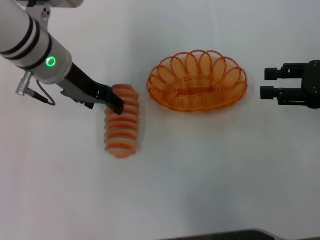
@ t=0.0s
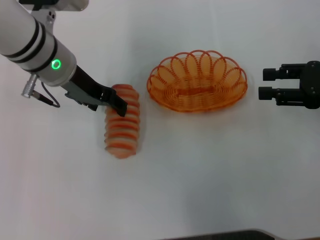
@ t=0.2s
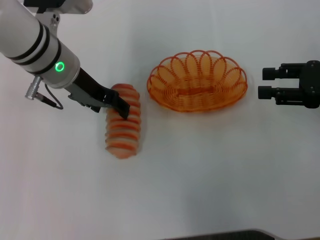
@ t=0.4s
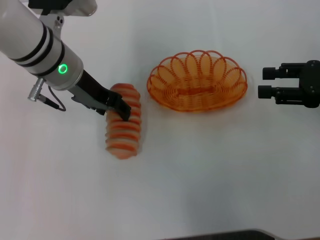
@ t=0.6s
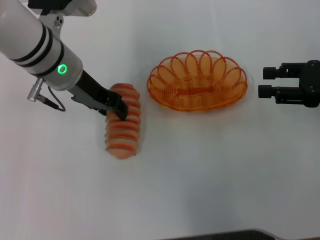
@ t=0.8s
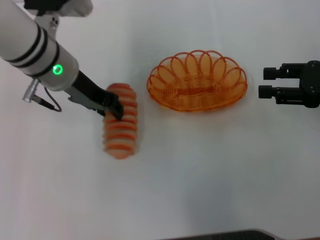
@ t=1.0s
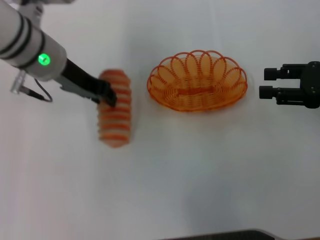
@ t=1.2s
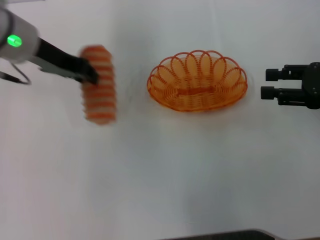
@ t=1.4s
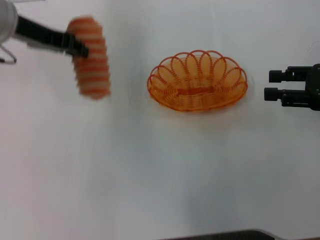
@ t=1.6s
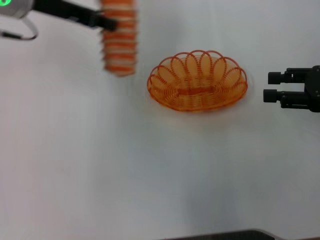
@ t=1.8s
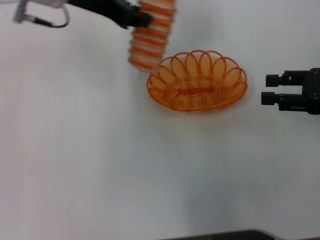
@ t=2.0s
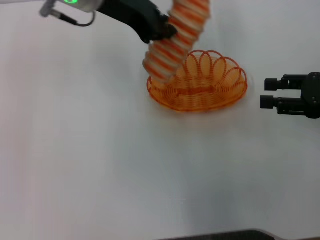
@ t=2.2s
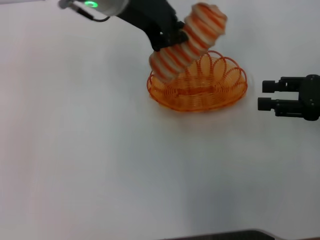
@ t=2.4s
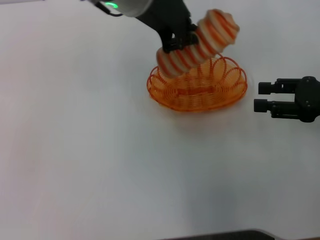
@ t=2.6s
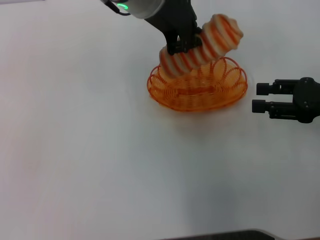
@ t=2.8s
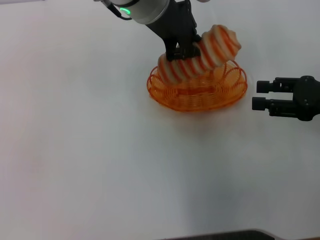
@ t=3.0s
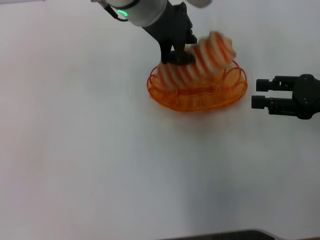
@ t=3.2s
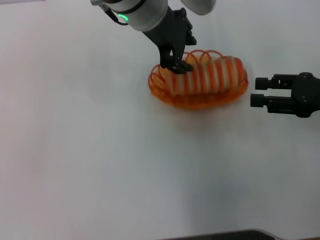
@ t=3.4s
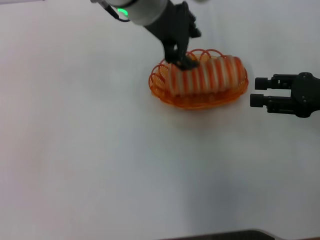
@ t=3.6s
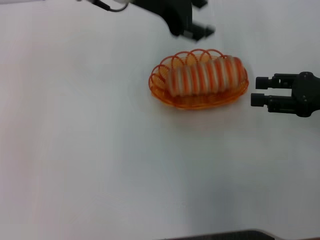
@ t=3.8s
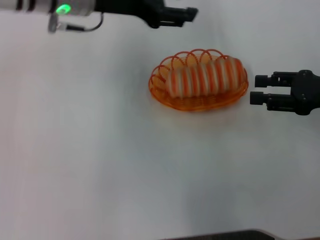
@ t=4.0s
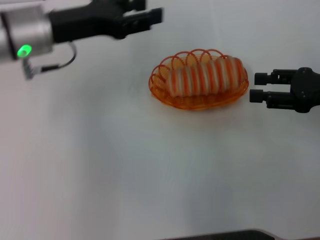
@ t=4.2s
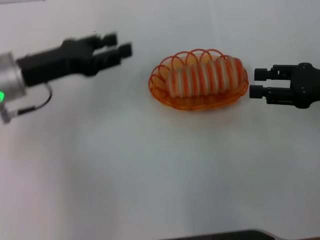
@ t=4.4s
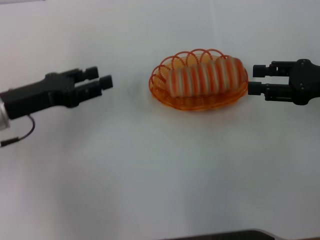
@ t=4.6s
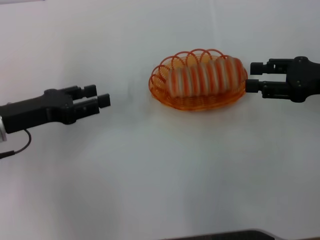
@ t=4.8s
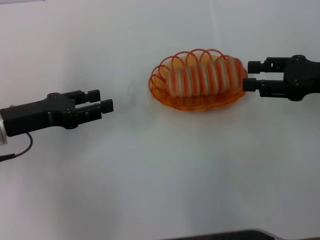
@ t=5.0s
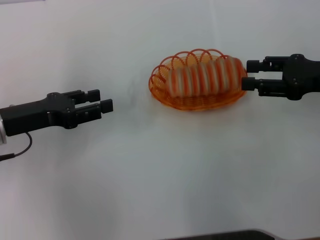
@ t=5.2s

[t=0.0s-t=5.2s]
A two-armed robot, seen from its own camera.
Step, t=1.2s to t=3.4s: Place the long bread into the basket with the left gripper.
t=0.0s to t=1.8s: The left gripper heads upward, covering about 5 cm, and closes up.
t=1.8s to t=3.4s: The left gripper goes approximately 15 cm to the right.
t=3.4s to t=5.2s: The left gripper shifts about 30 cm to the left, downward and backward, and opens.
